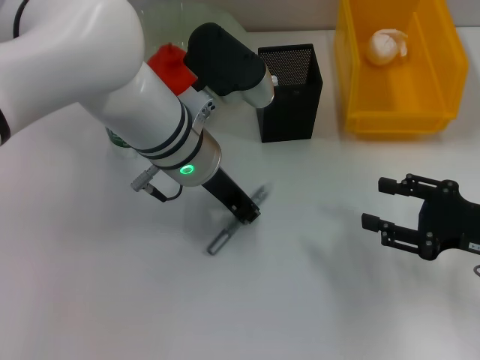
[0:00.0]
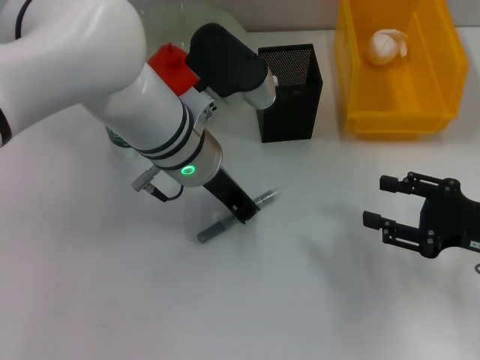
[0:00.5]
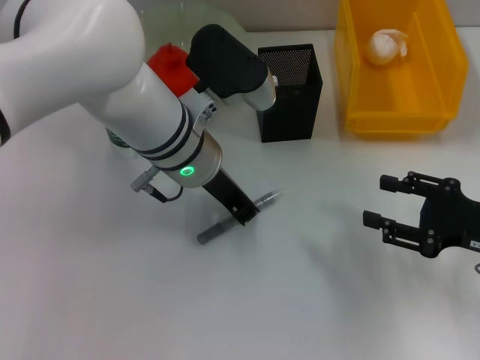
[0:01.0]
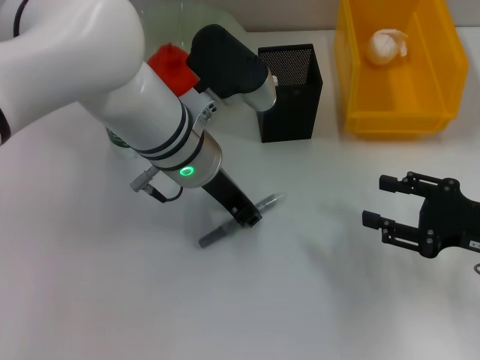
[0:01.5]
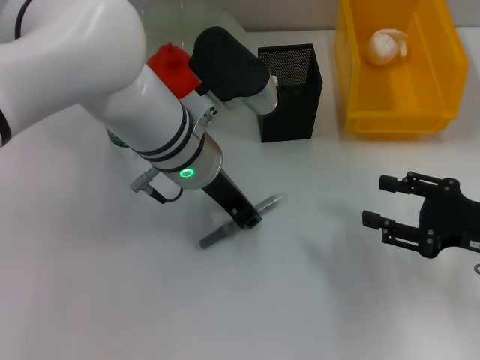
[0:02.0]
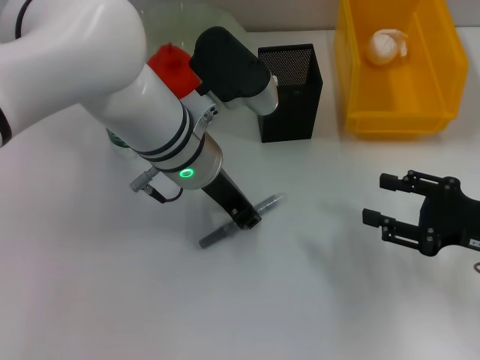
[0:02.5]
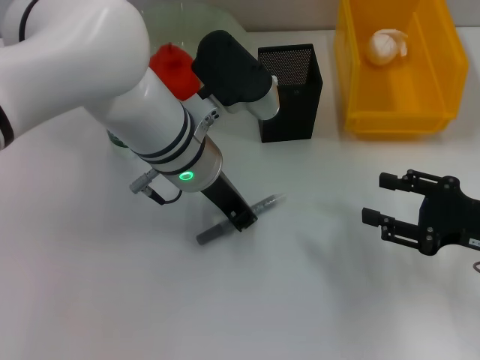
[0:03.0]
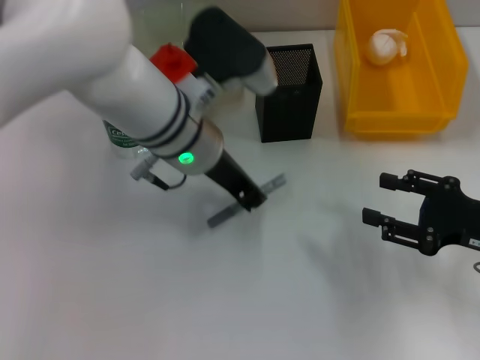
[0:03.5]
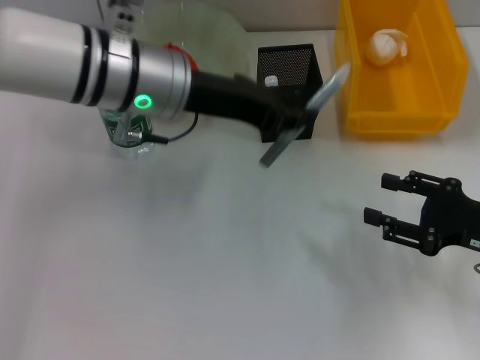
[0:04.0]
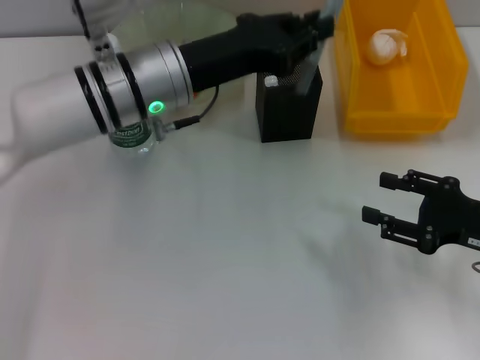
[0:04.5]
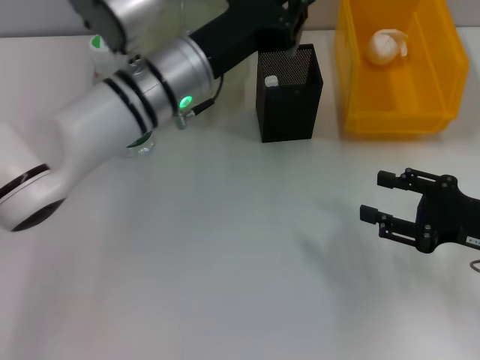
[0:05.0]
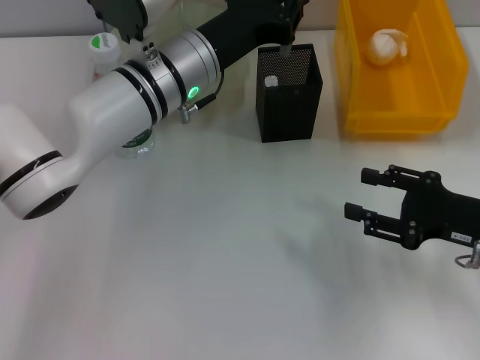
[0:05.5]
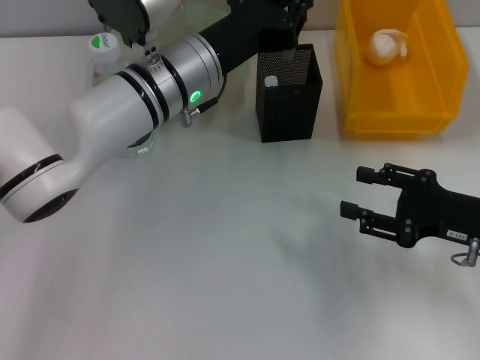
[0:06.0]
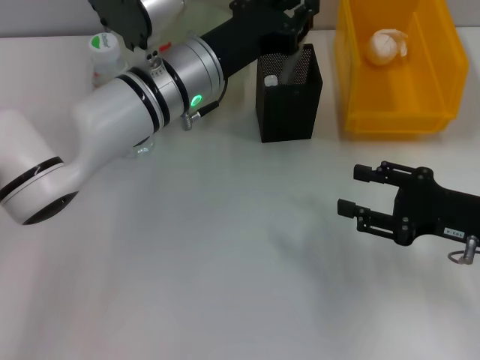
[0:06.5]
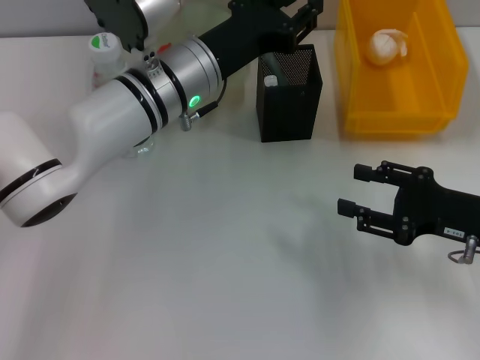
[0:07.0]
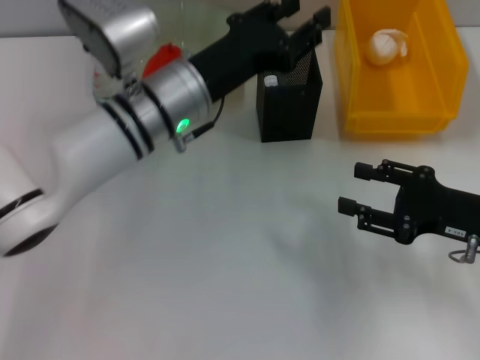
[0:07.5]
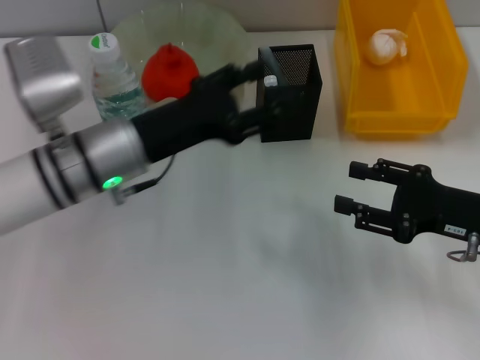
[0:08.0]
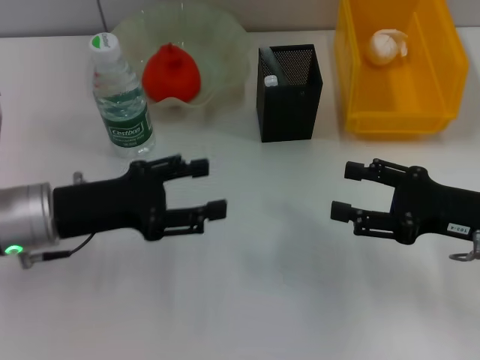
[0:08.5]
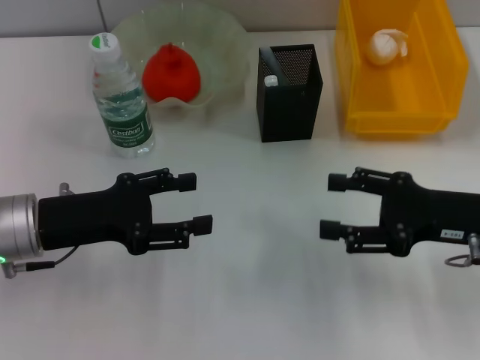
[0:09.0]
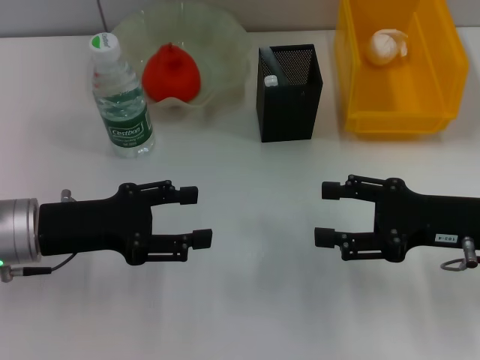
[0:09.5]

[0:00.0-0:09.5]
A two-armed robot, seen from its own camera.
Step, 0:00.0 to 0:03.0: Grab the gray glue with the left hand.
Step, 0:03.5 to 0:07.0: Place the gray glue into the pen holder with the left hand.
0:00.0 to 0:02.0: Both grippers stay about where they are.
0:02.0 to 0:04.0: The left gripper shifts about 5 cm upward.
0:04.0 to 0:05.5: The left gripper moves downward, about 5 cm.
0:05.5 to 0:07.5: The left gripper opens up.
0:07.5 to 0:09.5: The left gripper moves to the left and backward, approximately 20 cm, and opens up.
